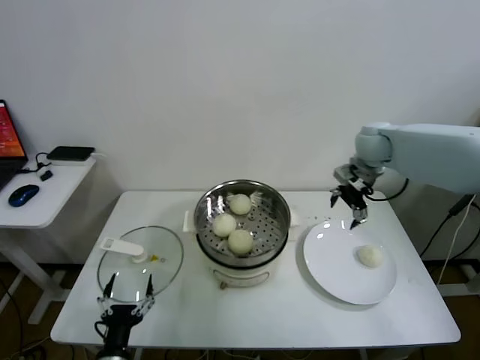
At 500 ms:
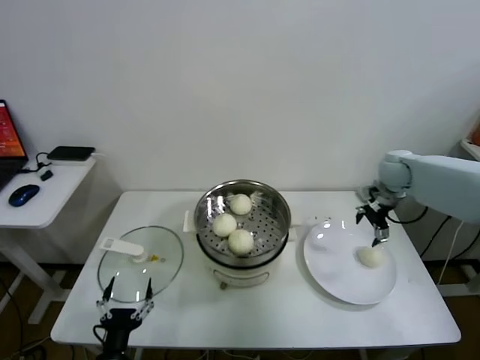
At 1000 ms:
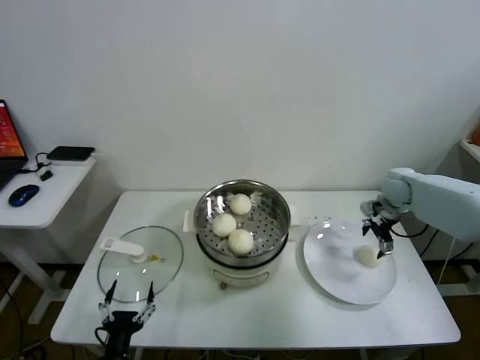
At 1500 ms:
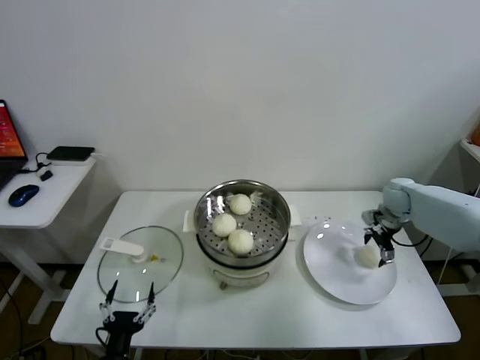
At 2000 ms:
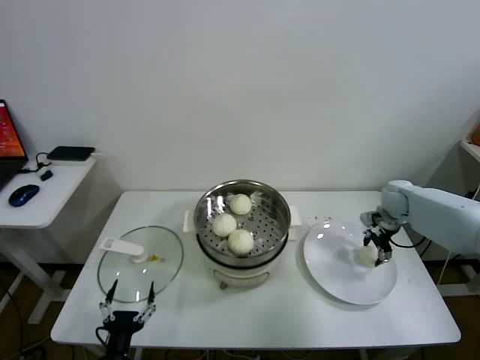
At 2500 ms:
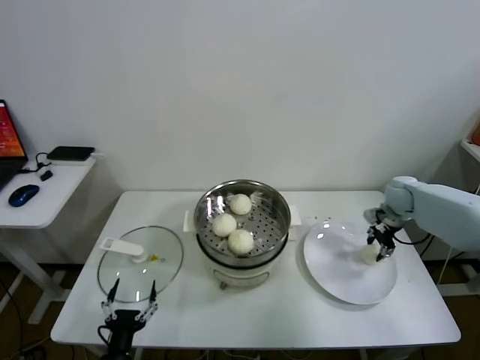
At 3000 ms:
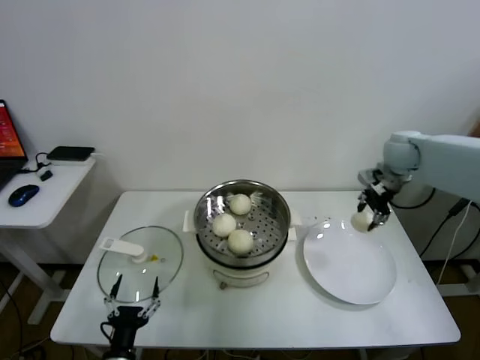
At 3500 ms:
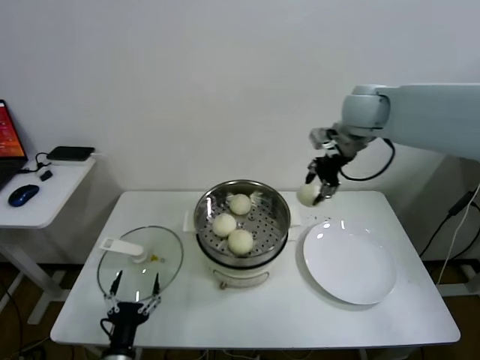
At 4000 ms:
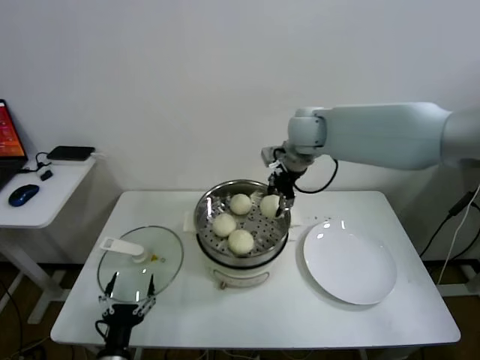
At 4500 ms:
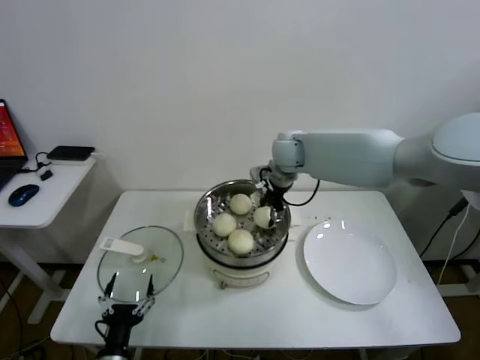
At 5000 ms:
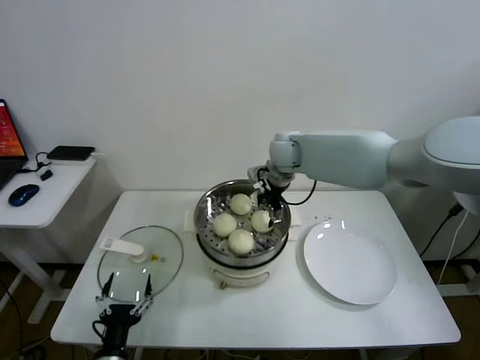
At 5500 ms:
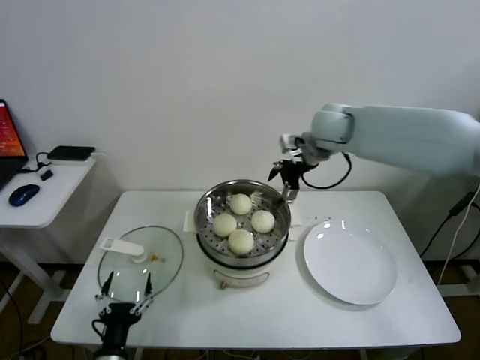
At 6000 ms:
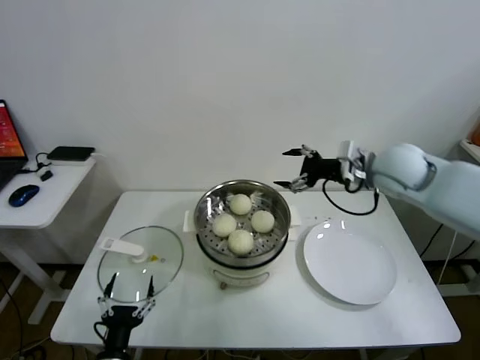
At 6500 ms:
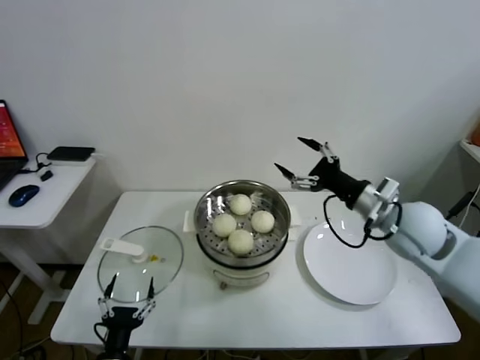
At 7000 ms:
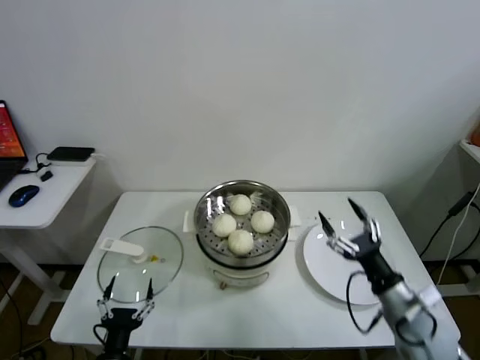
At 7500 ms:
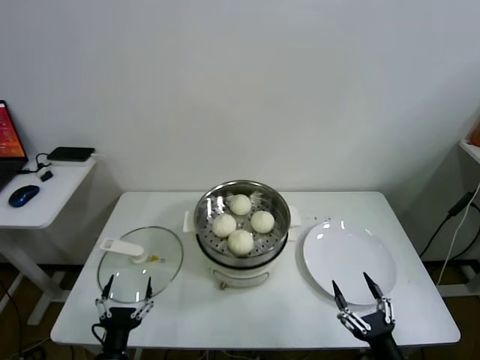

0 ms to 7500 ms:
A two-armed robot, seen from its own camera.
Task of the whole recording: take steamed baozi put them in steamer.
Step, 0 ms to 2000 ms: Grasp the baozi in the plate with right gripper.
Step, 2500 ms to 5000 ms: Place the baozi on the steamer with right gripper.
0 ms to 2000 ms: The right gripper is displaced downward and to the right by some 20 cm.
2000 ms to 4000 ms: The right gripper is displaced to the left and upward by some 35 cm.
4000 ms to 5500 ms: The right gripper travels downward and back again, roughly 10 cm each way, and opens.
5500 ms to 7500 ms: The right gripper heads backward and downward, covering about 60 cm.

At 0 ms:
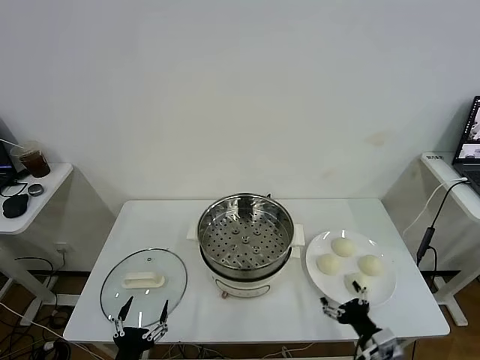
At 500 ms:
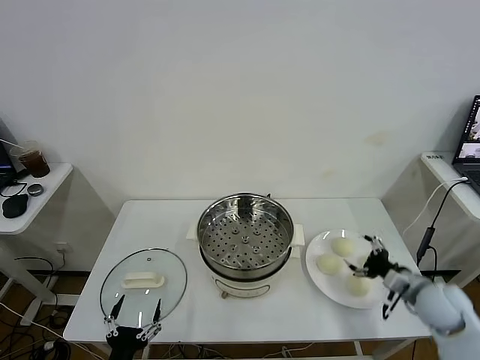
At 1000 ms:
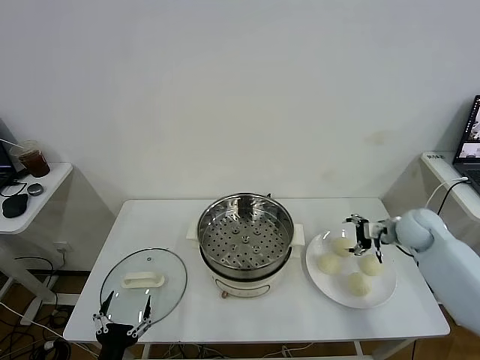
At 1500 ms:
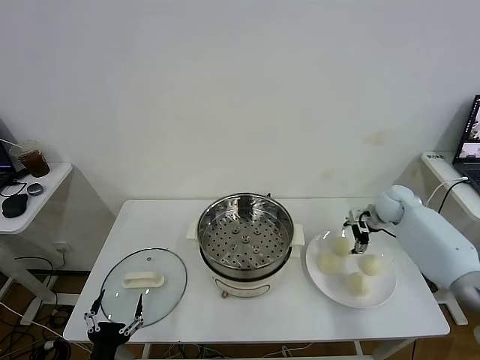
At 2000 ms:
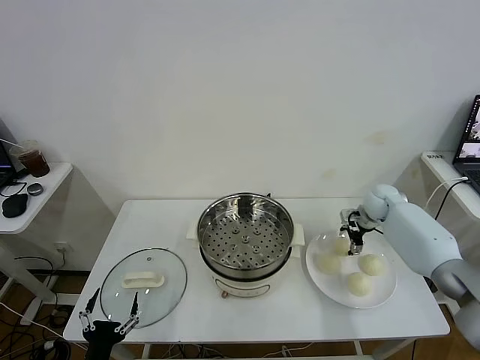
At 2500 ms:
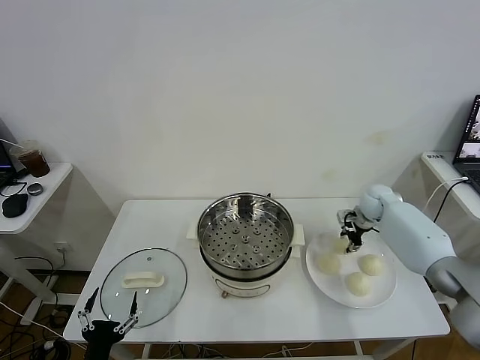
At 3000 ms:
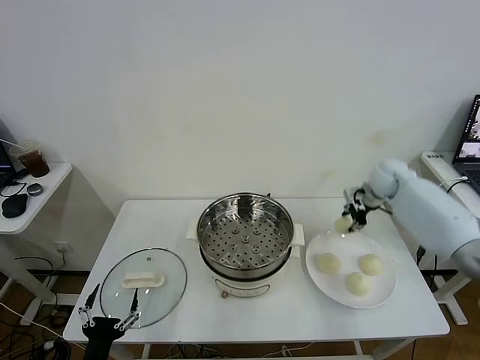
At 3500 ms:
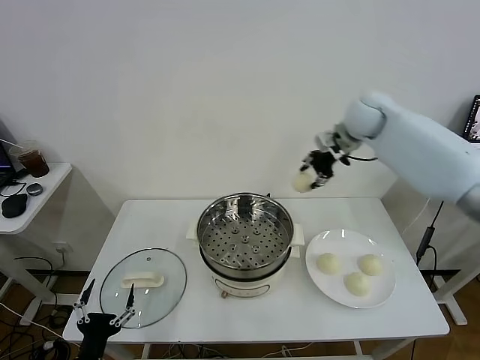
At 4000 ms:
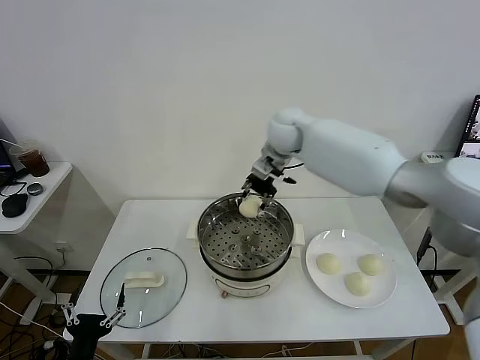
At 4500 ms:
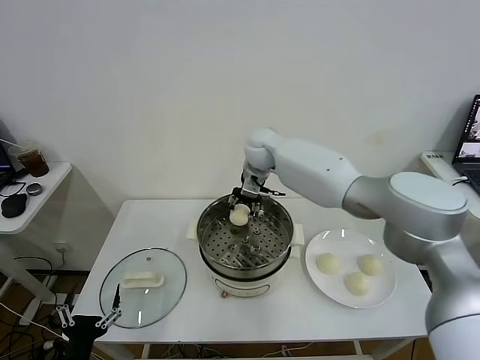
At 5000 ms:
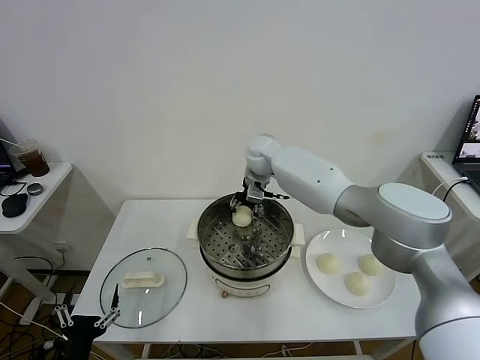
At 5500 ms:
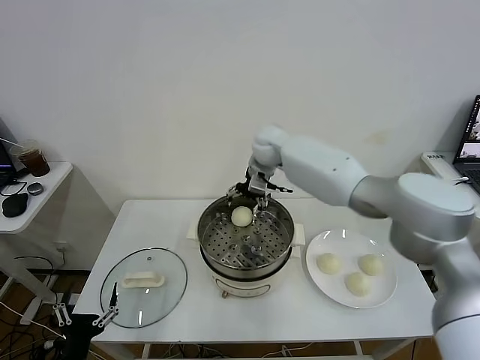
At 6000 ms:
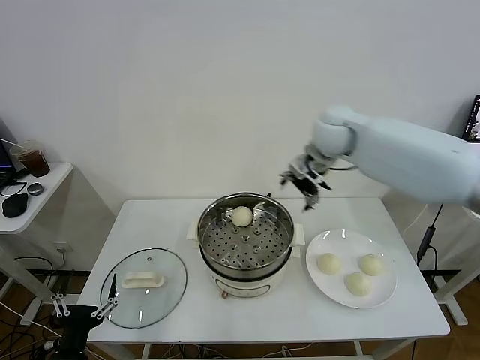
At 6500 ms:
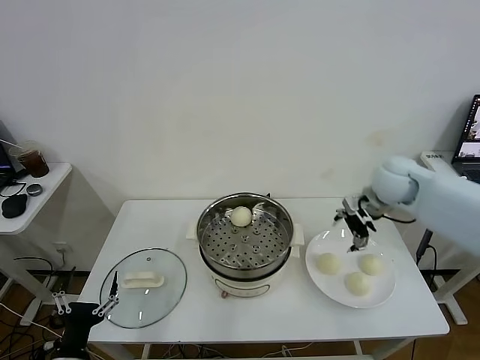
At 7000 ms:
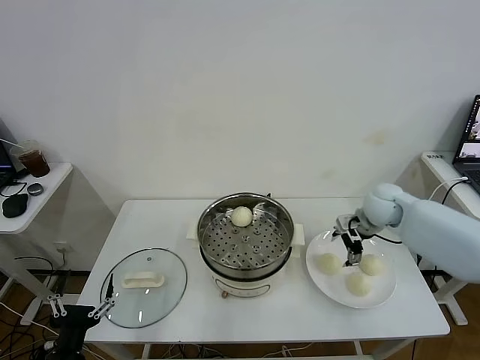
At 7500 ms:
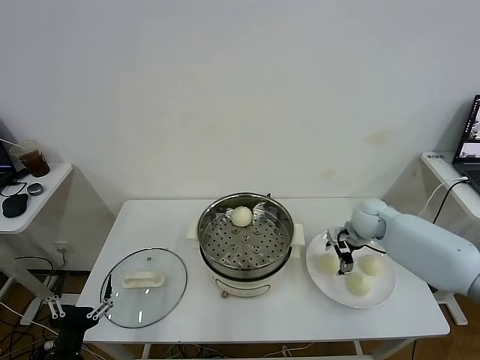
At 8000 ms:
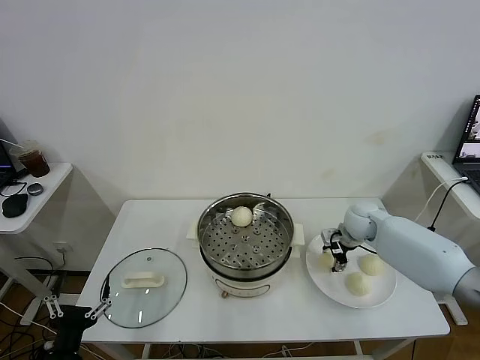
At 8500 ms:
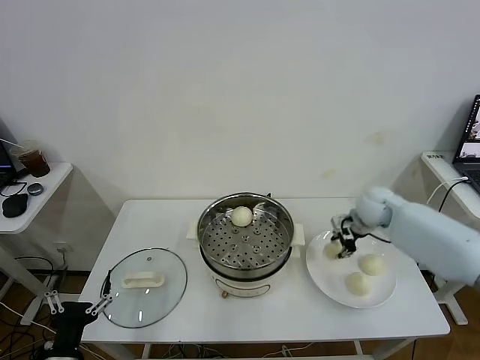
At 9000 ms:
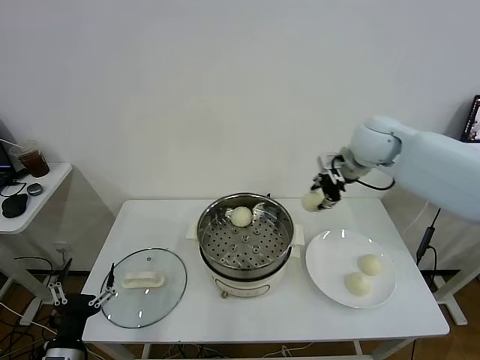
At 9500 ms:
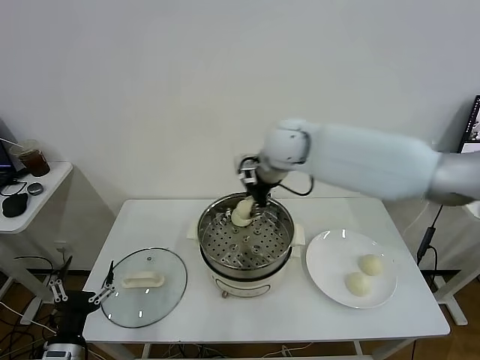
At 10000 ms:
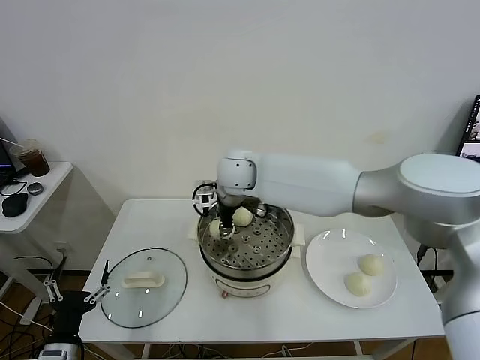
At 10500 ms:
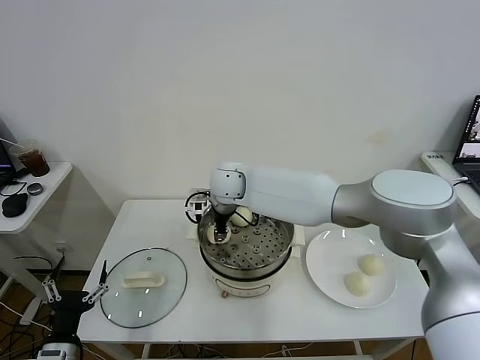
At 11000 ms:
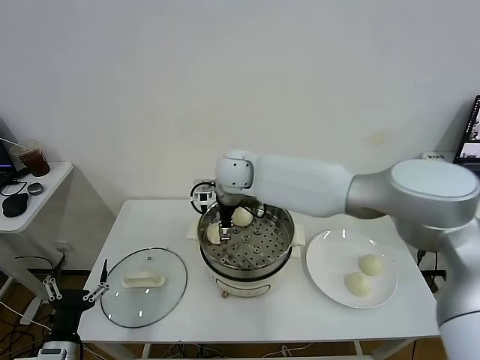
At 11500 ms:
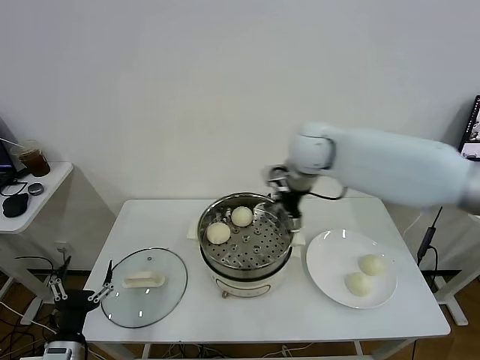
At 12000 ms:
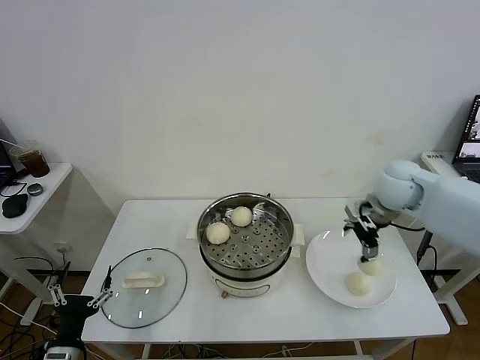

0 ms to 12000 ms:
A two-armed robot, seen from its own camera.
Task of the whole recording: take steamed baozi put them in steamer.
Step, 0 ms to 2000 ms: Grasp the baozi in the plate with right gripper.
Step, 2500 ms to 5500 ms: Place the baozi on the steamer with right gripper.
Step, 6000 ms to 8000 ms: Grasp the baozi in the plate with right gripper.
Step, 8500 ms to 11000 ms: Place the baozi on the steamer with right gripper.
2000 ms to 4000 ms: The right gripper goes about 35 cm to the left and upward, and closes its fingers.
4000 ms to 6000 ms: The right gripper travels to the right and backward by approximately 15 cm, and opens its fingers.
6000 ms to 8000 ms: The right gripper moves downward, about 25 cm, and closes its fingers.
8000 ms to 10000 ms: The right gripper travels to the left and upward by roughly 35 cm.
10000 ms to 12000 ms: The right gripper shifts about 35 cm to the right, and opens its fingers.

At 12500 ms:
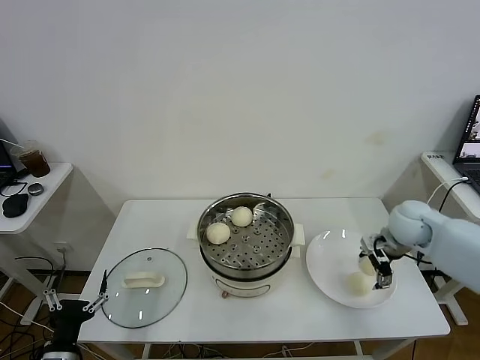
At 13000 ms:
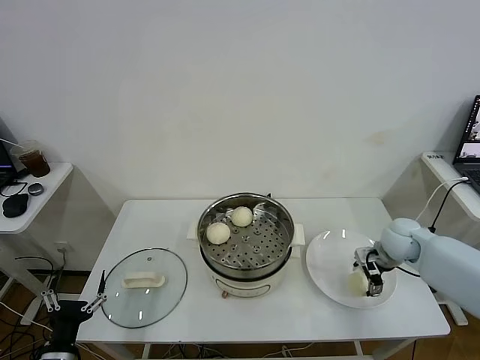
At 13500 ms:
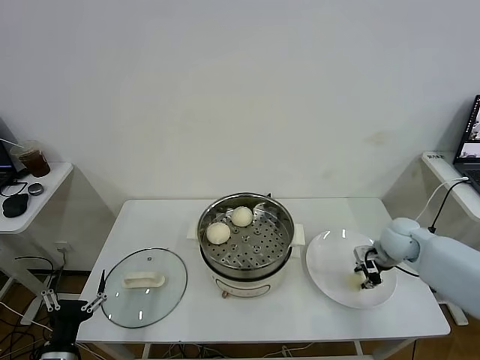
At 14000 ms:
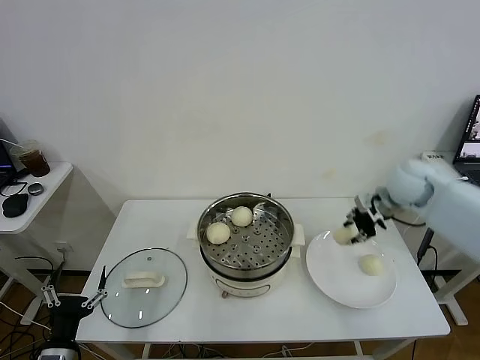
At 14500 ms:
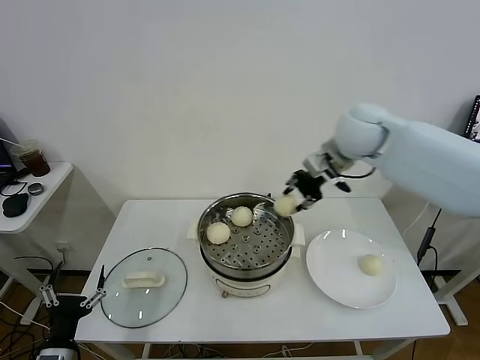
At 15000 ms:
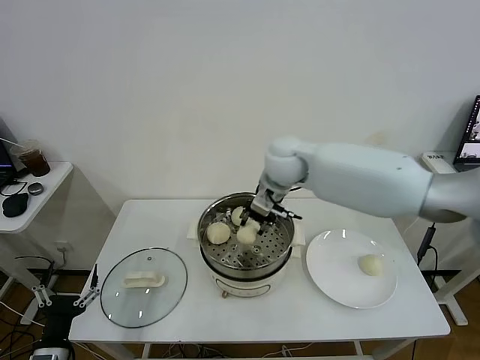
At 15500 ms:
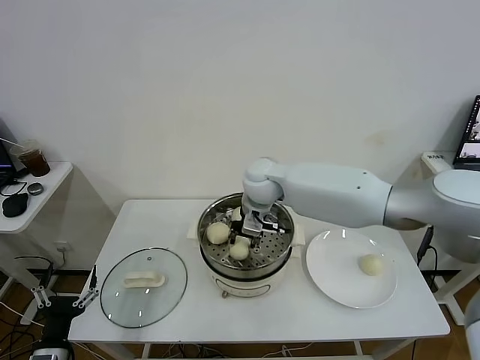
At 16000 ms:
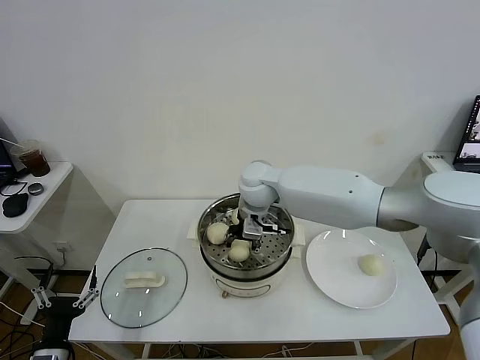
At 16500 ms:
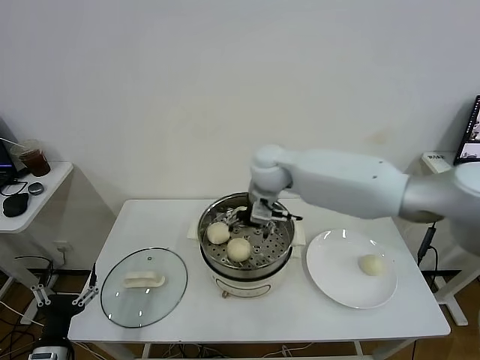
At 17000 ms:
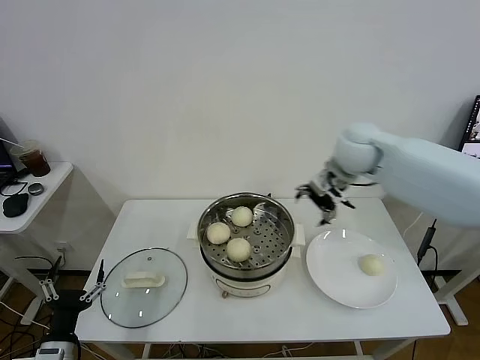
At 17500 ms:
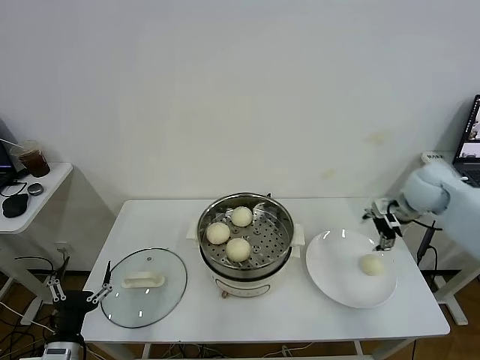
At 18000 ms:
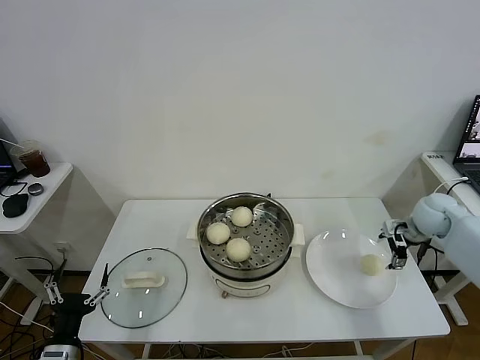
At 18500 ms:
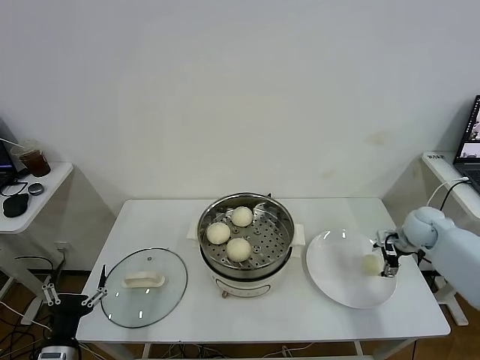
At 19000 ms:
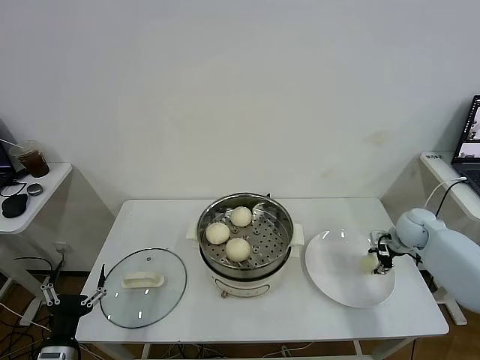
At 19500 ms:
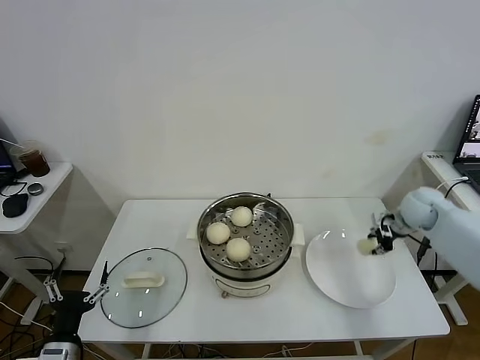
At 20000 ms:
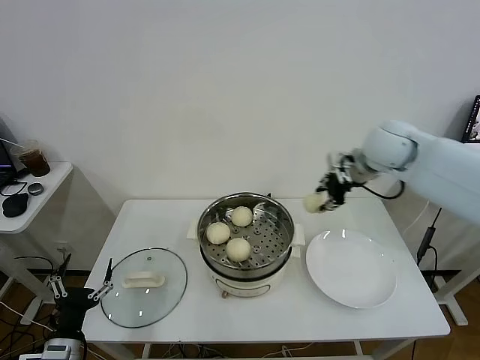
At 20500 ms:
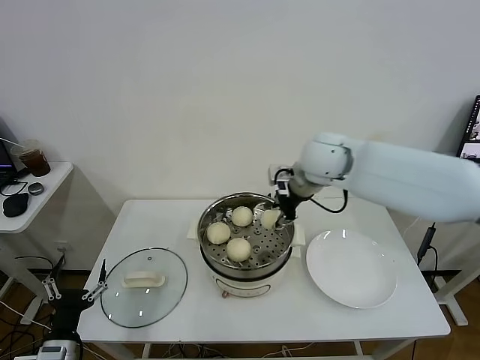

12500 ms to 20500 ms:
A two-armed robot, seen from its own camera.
Task of the whole recording: take steamed baozi put them in steamer.
Step, 13500 ms to 16000 ms: Place the baozi on the steamer with right gripper.
Step, 16500 ms to 19000 ms: Grasp the baozi in the plate with right gripper.
12500 ms to 14500 ms: The right gripper moves upward and to the left, approximately 25 cm, and closes up.
14500 ms to 16500 ms: The right gripper moves to the left and downward, approximately 15 cm, and opens up.
16500 ms to 18500 ms: The right gripper moves to the right and downward, roughly 40 cm.
18500 ms to 20500 ms: The right gripper moves to the left and upward, about 35 cm, and closes.
